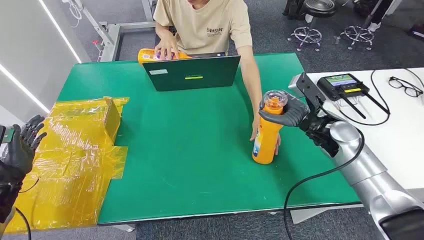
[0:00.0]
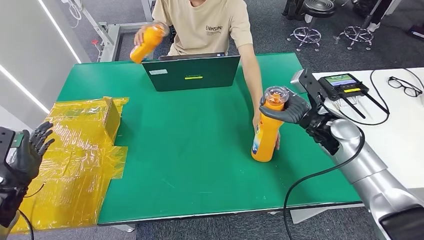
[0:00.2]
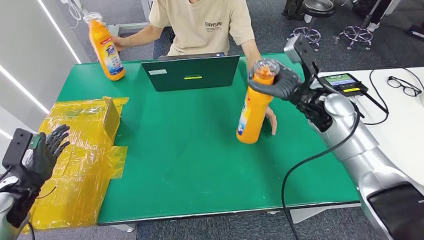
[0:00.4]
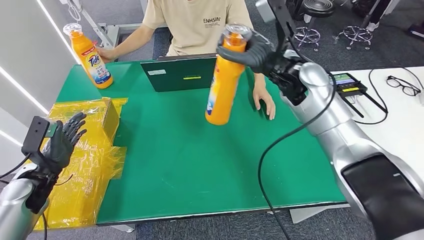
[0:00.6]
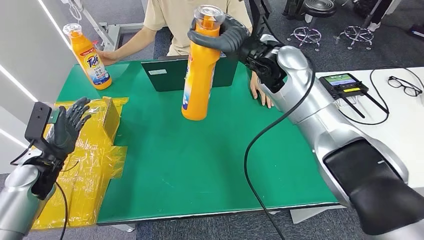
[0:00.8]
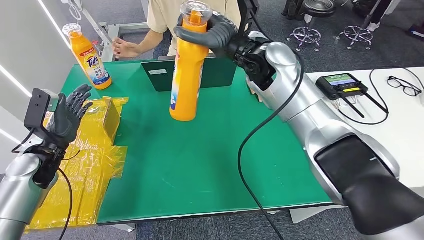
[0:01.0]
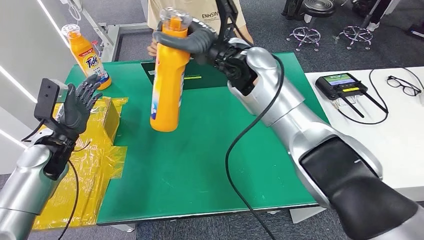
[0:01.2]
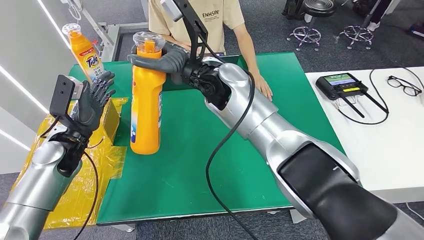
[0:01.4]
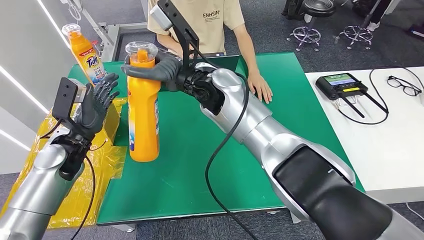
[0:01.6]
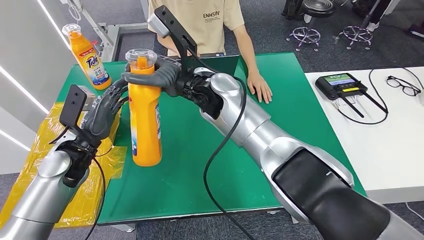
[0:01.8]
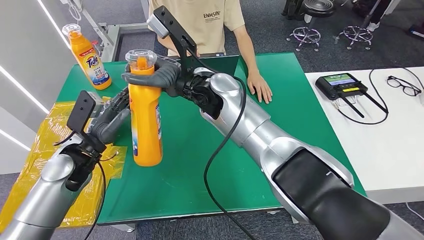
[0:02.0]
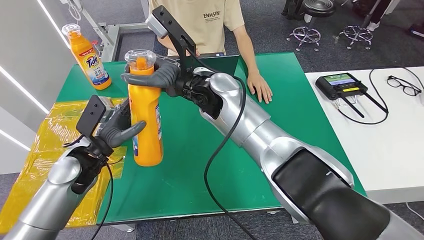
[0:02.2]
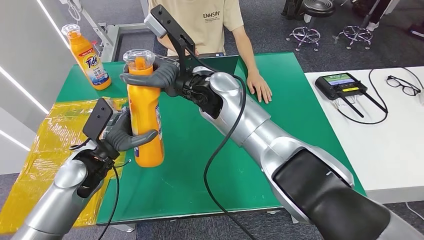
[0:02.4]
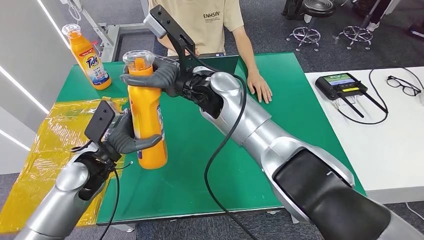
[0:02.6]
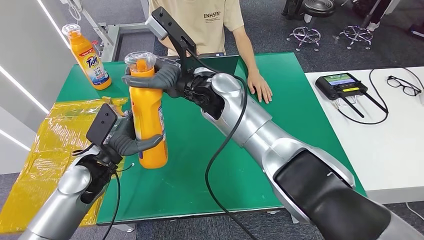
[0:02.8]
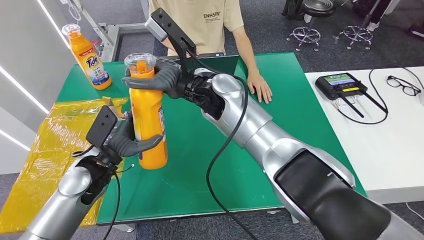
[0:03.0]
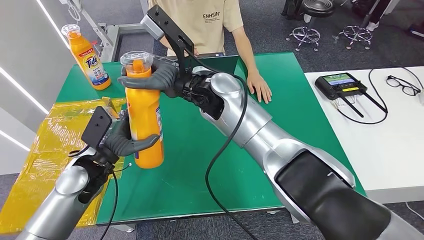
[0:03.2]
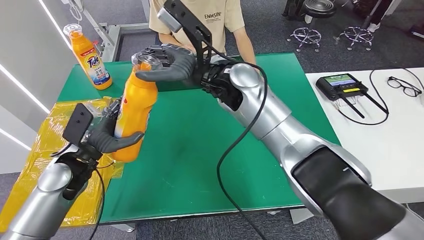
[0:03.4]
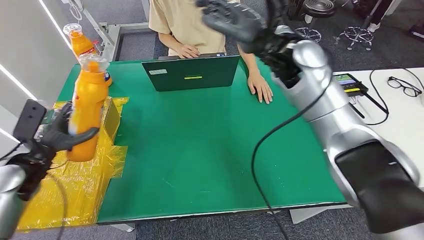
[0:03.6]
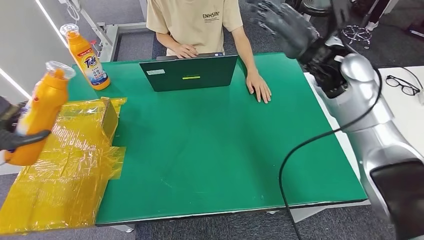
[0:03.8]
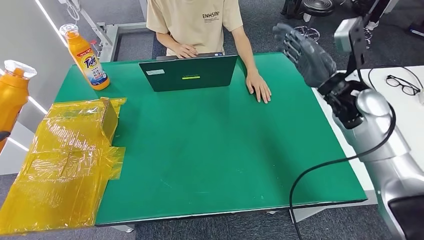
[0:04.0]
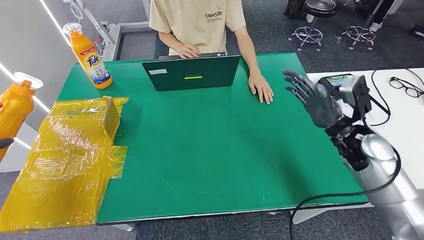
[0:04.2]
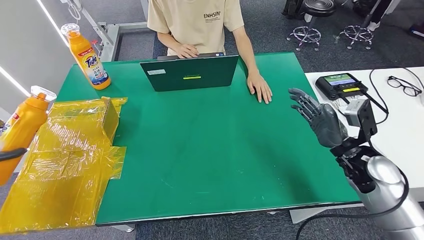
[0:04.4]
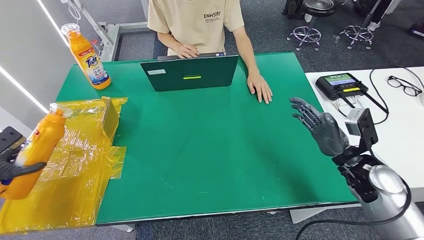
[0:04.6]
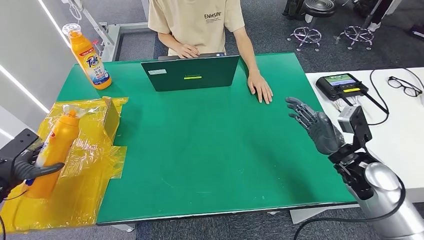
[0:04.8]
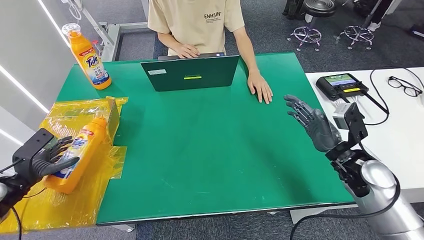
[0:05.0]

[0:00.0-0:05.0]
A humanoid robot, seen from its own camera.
Step, 0:00.0 to 0:01.4: Pick up the bottle from the table.
Step, 0:01.6 to 0:05.0: Turn the bottle to the front side.
